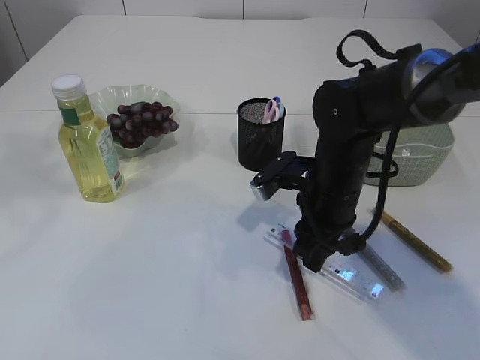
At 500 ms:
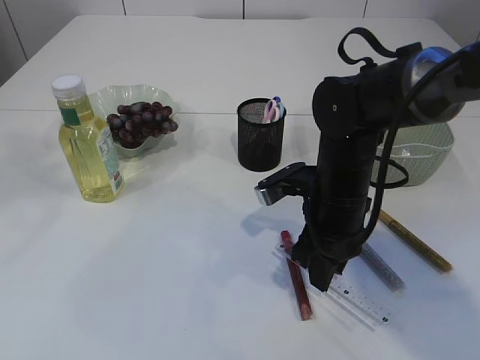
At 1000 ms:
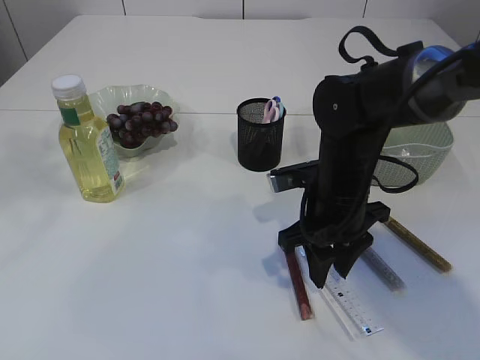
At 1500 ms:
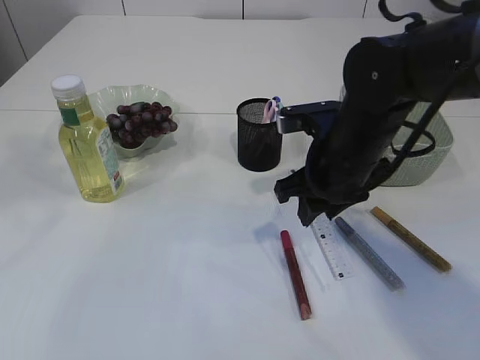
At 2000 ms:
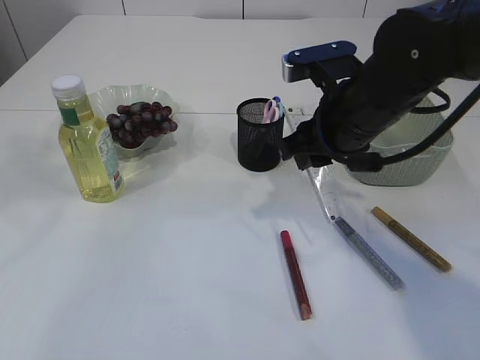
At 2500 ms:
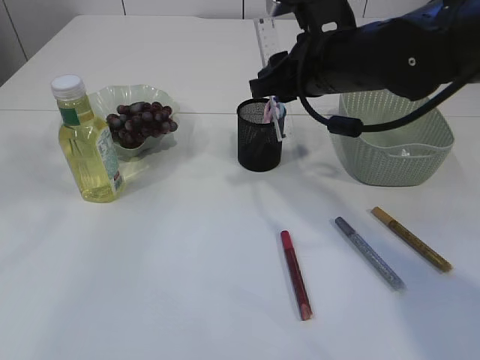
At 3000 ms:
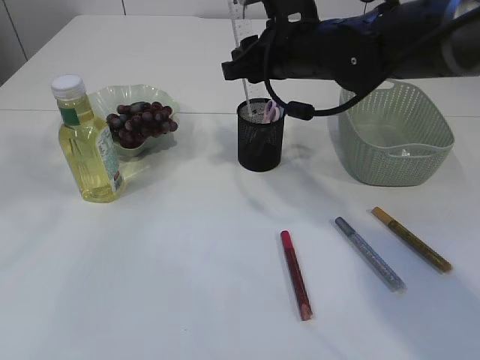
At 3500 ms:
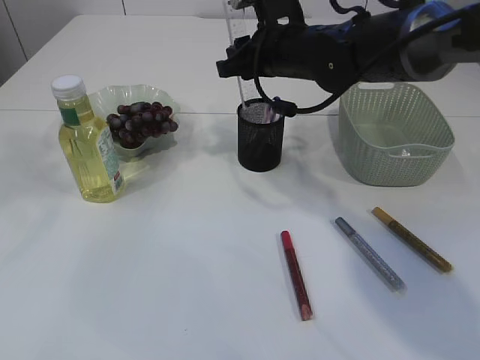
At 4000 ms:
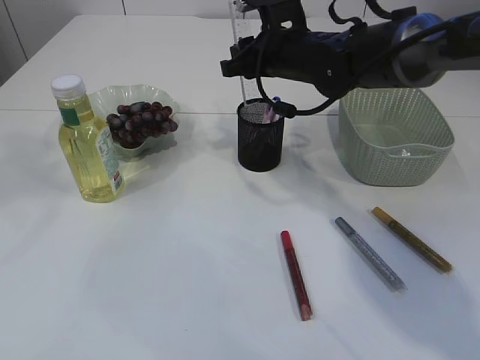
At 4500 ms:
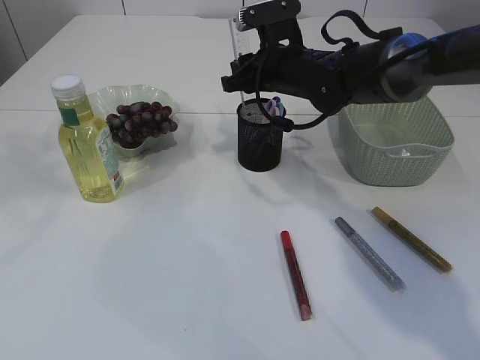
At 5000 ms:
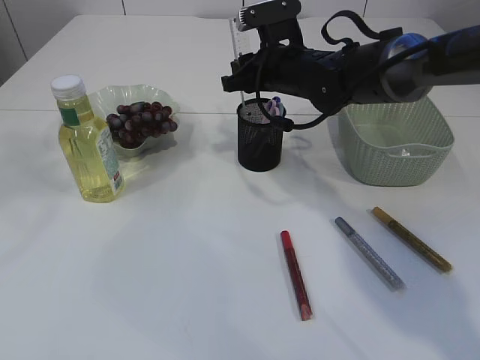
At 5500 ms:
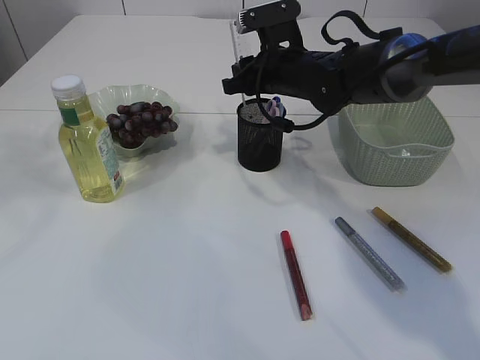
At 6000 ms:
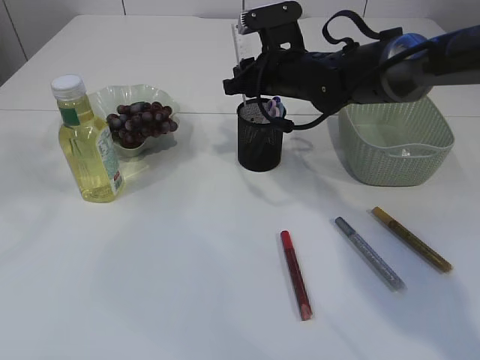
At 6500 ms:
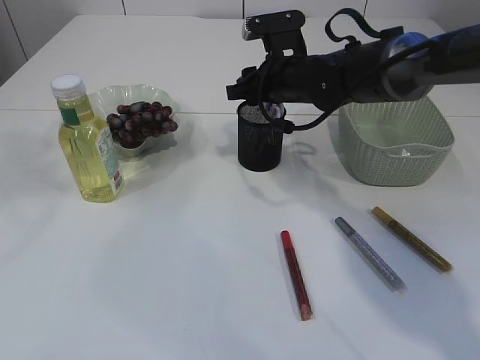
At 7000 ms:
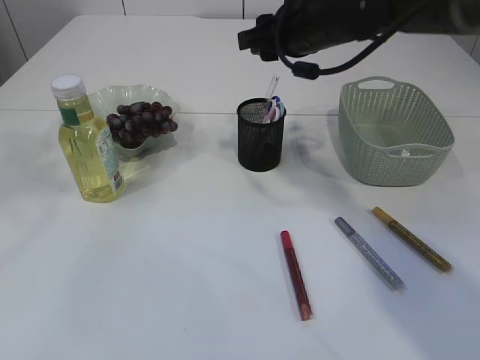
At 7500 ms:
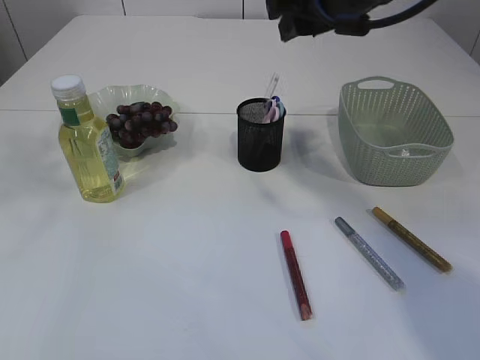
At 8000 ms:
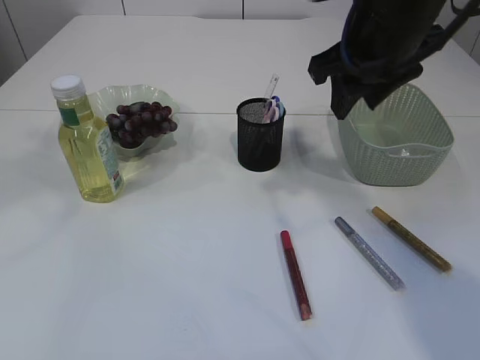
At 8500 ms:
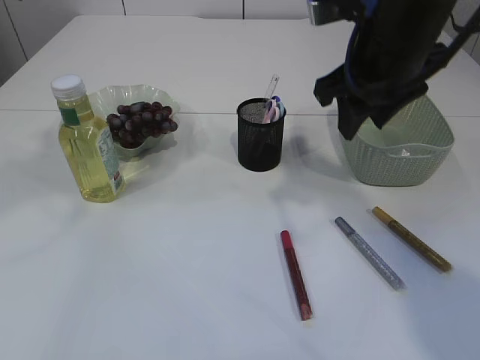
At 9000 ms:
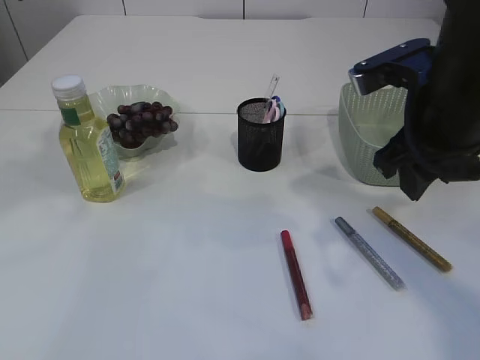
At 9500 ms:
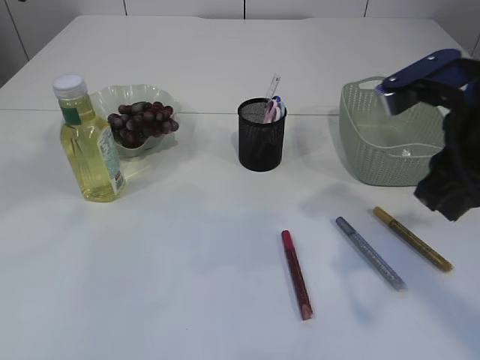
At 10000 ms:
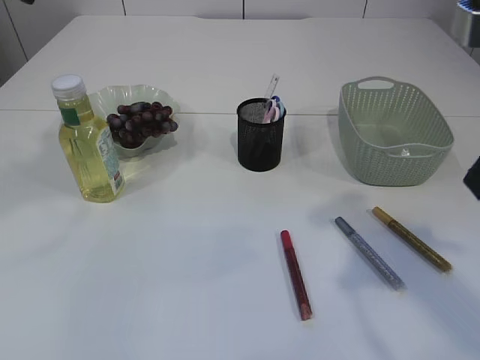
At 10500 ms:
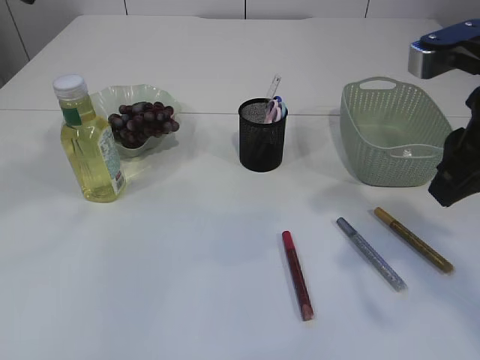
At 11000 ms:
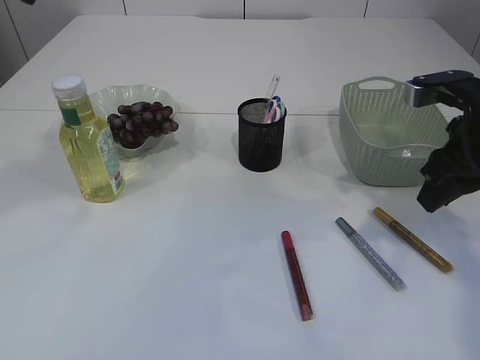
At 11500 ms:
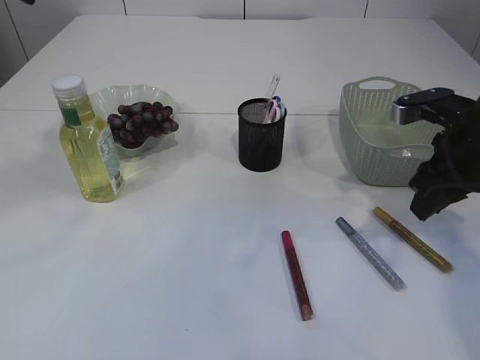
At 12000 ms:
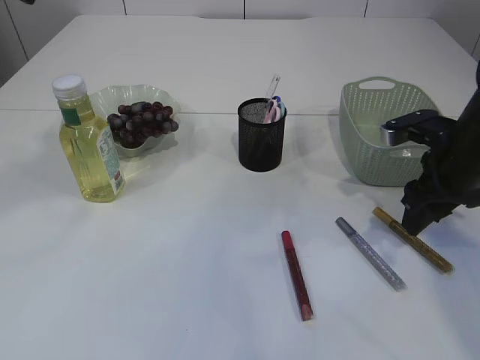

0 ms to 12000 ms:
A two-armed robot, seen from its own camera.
Step, 1500 ms to 6500 ms: Place the ruler into the pen holder.
0 ms to 2000 ms: The right gripper is displaced upward by roughly 10 cm.
2000 ms to 4000 ms: The right gripper is displaced forward by roughly 15 cm.
4000 ms to 6000 ms: There are only small adjustments of the grippers.
6000 ms to 8000 ms: The right gripper heads backward, upward and to the right, covering roughly 20 cm.
8000 ms to 10000 ms: The right gripper travels backward by about 15 cm.
10000 ms to 12000 ms: The right gripper travels downward and forward by about 25 cm.

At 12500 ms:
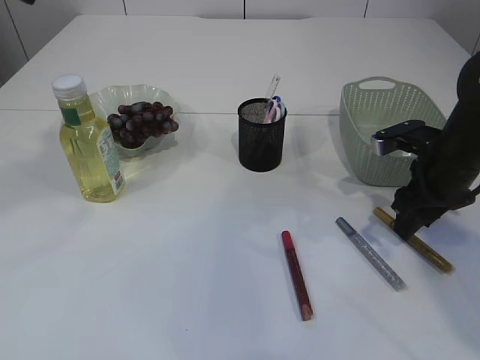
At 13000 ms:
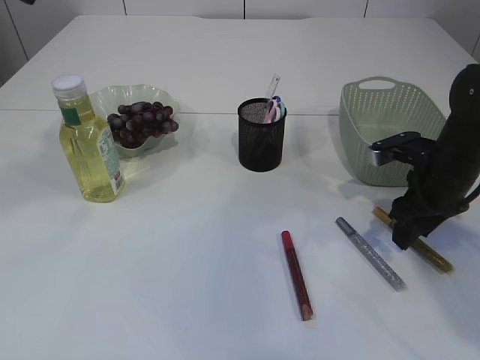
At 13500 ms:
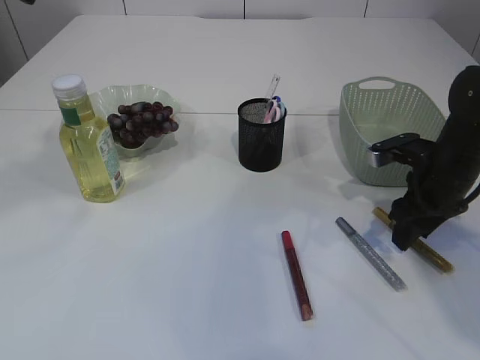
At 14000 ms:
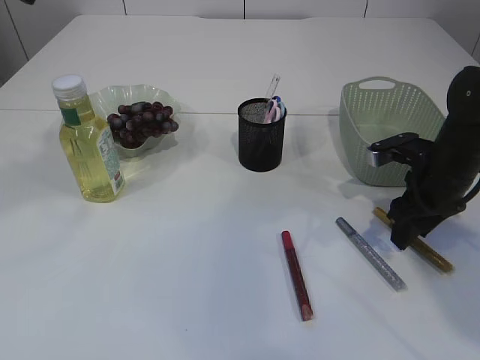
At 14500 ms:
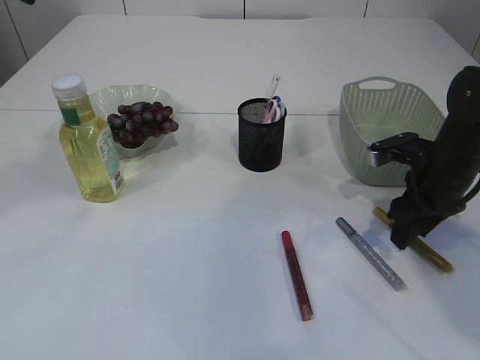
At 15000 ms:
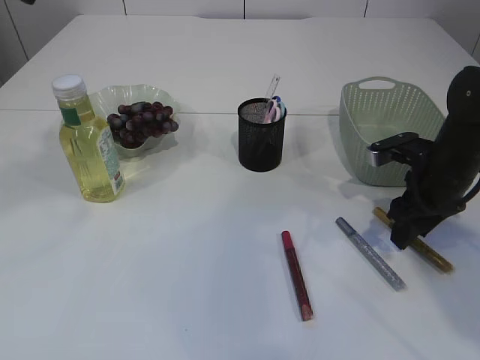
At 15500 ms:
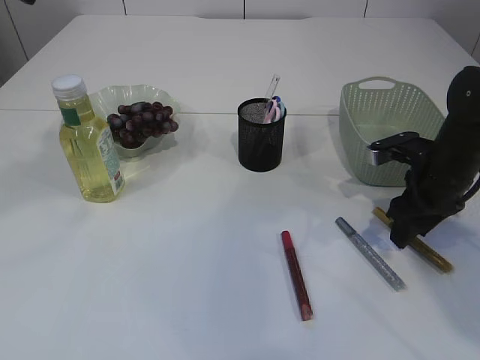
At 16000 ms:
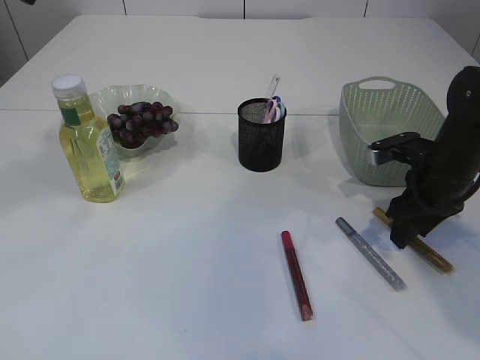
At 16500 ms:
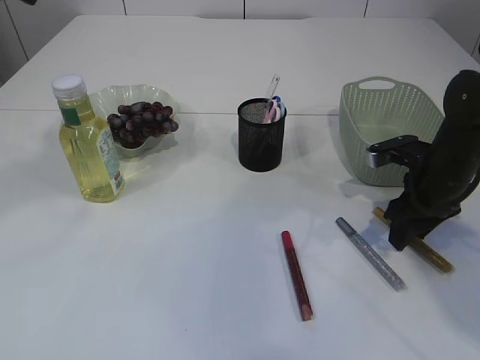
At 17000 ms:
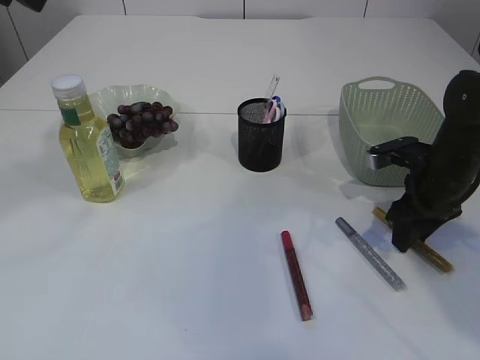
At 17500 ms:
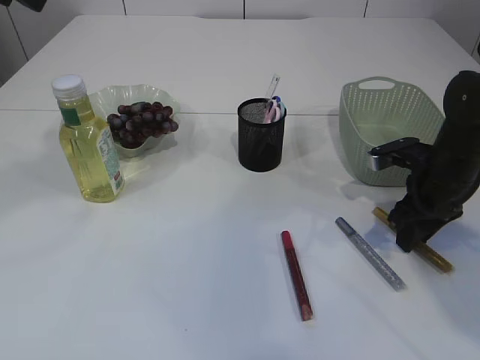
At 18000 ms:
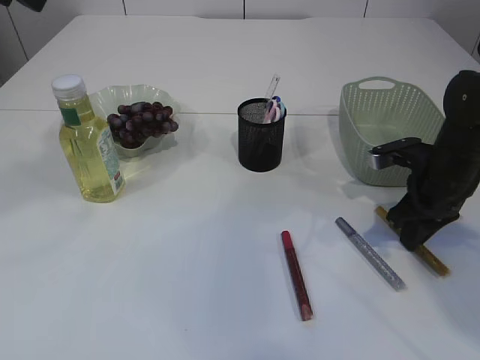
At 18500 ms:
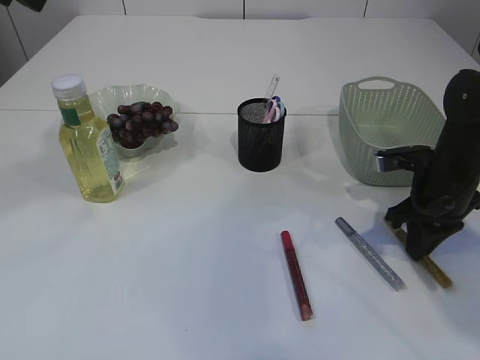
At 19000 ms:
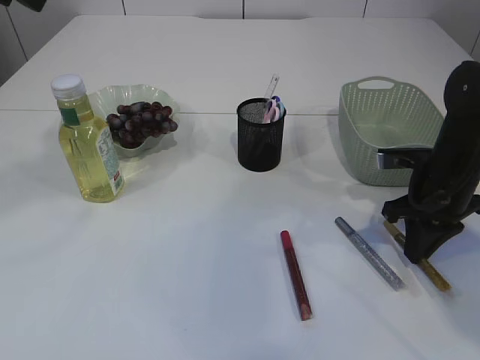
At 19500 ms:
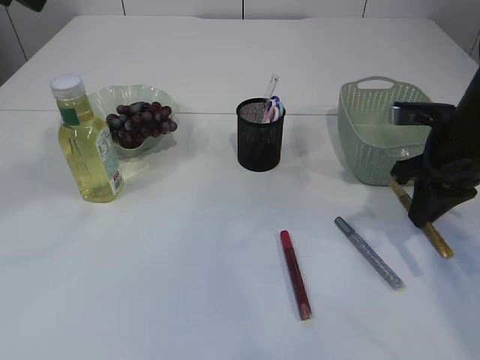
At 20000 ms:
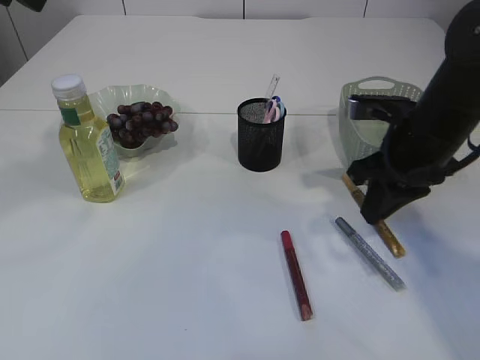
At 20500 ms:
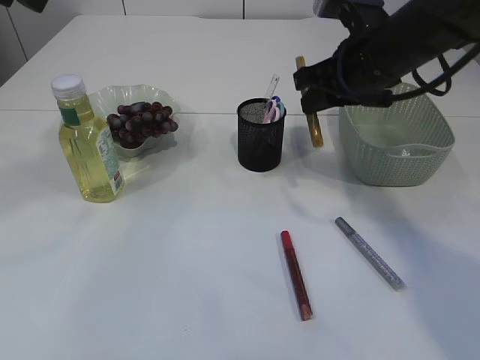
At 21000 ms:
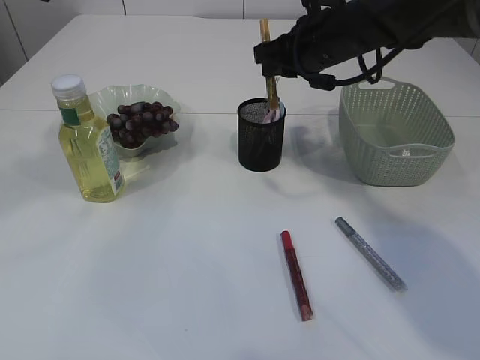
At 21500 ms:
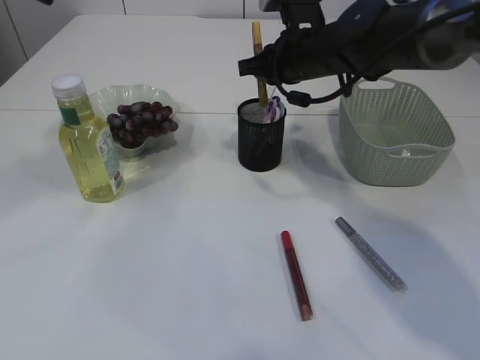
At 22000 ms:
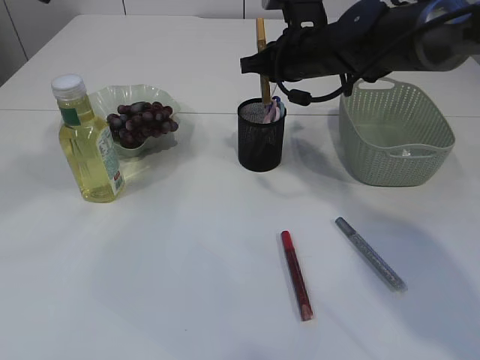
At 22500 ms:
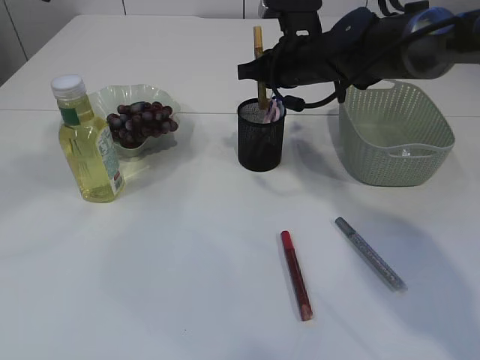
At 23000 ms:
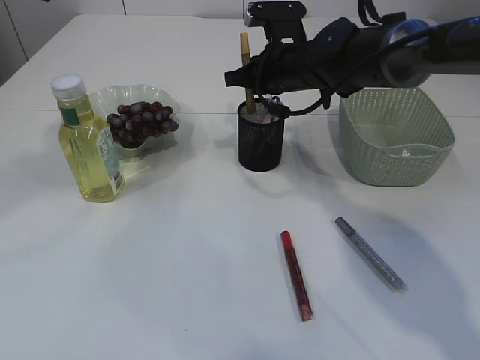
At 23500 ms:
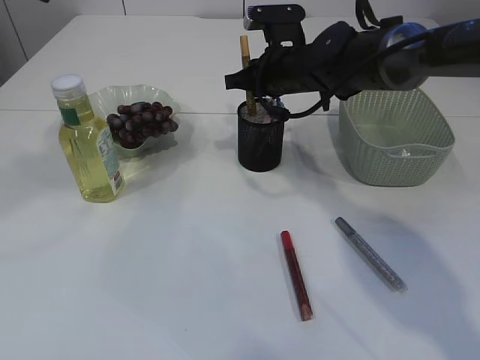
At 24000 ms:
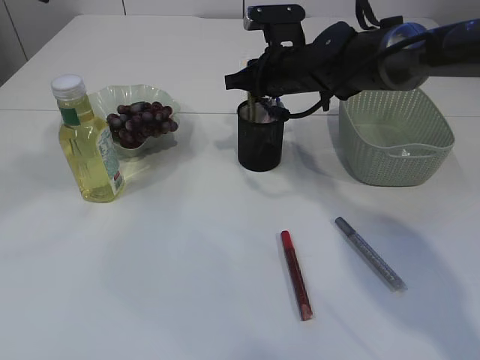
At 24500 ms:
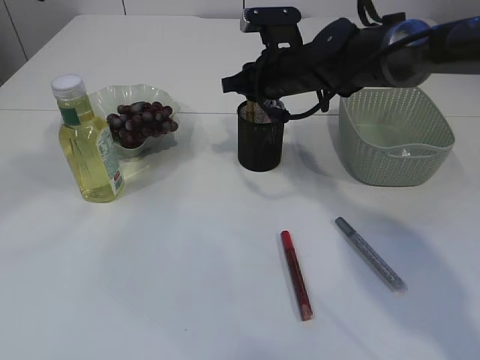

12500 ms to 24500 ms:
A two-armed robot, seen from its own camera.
Step, 12500 ms to 19000 ms: pick up the yellow glue.
12500 ms to 14500 ms: There are only small adjustments of the grippers.
14500 ms to 16500 ms: The two grippers keep their place.
16500 ms to 18500 ms: The right gripper closes up.
18500 ms to 20500 ms: The right gripper shifts approximately 15 cm upward and to the left.
20500 ms to 22500 ms: The right gripper goes some 10 cm forward and to the left.
22500 ms to 24500 ms: There are only small adjustments of the grippers.

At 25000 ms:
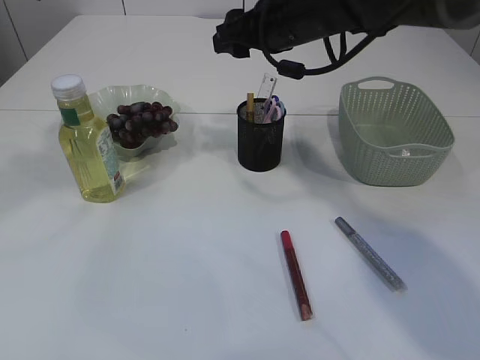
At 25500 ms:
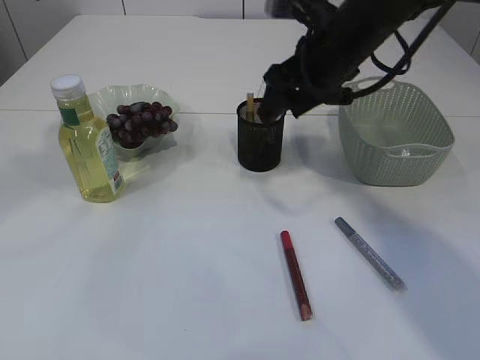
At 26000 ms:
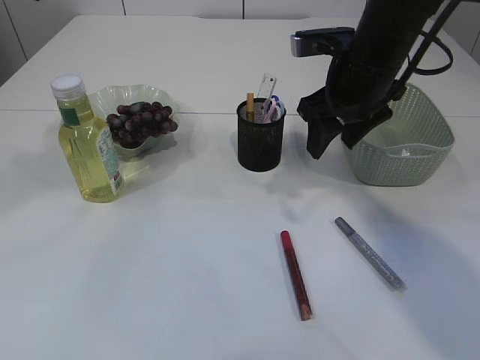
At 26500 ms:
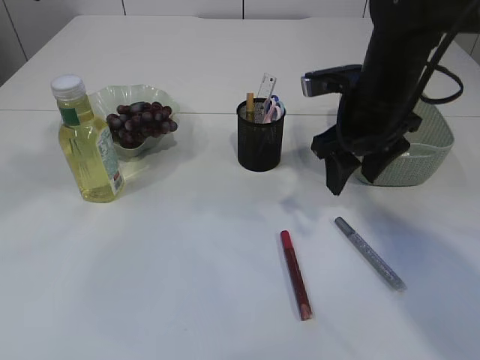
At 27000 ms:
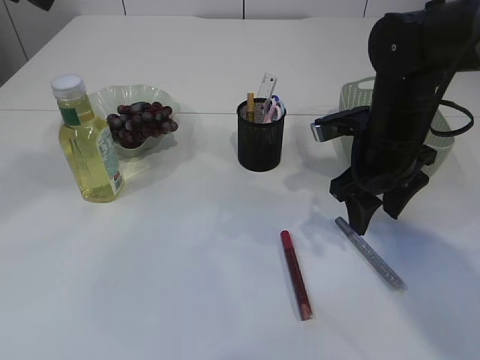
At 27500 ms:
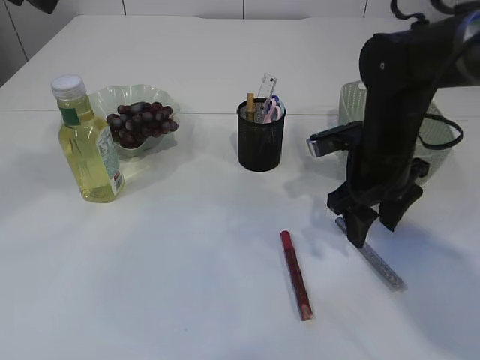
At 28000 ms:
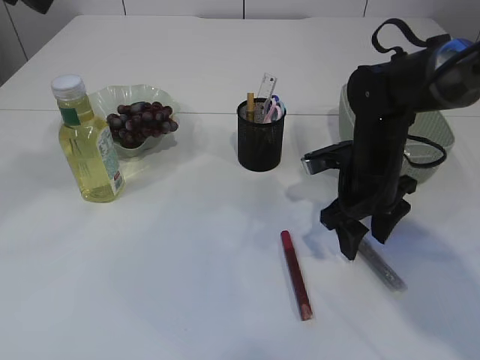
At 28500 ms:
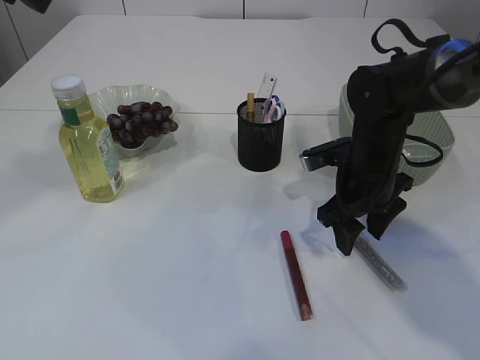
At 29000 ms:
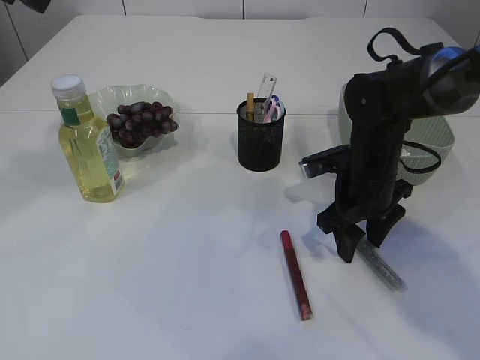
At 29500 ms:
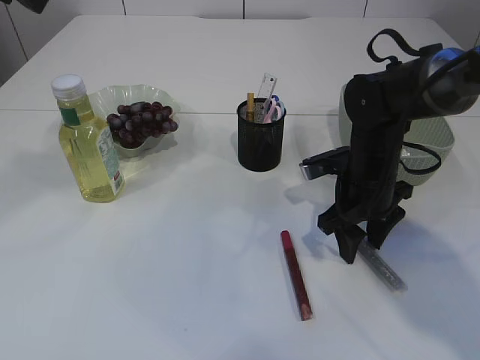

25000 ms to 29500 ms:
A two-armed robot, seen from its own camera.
25000 ms to 27000 ms: The right gripper heads downward, to the right and backward, covering approximately 15 cm.
27000 ms to 29500 ms: The right gripper shifts roughly 5 cm downward.
